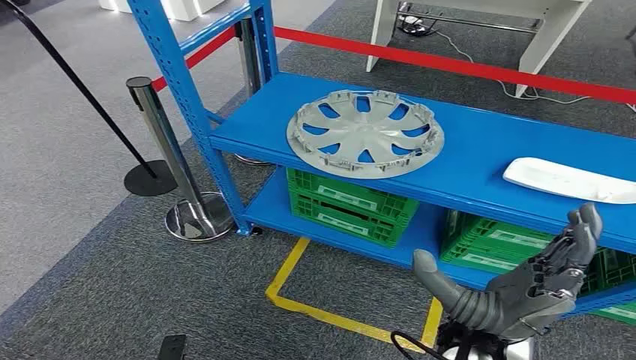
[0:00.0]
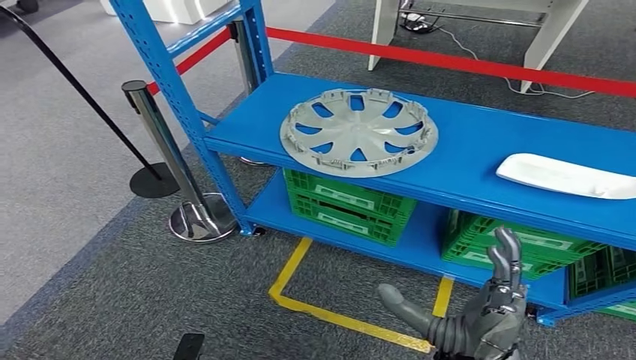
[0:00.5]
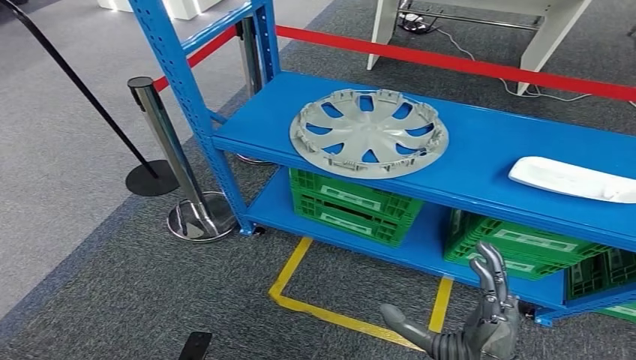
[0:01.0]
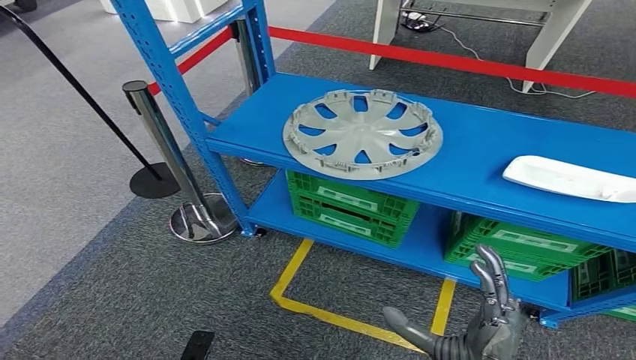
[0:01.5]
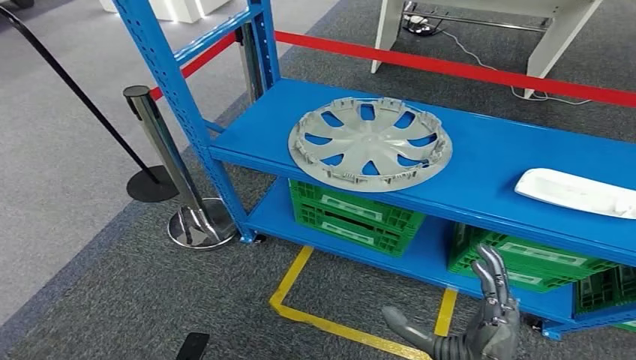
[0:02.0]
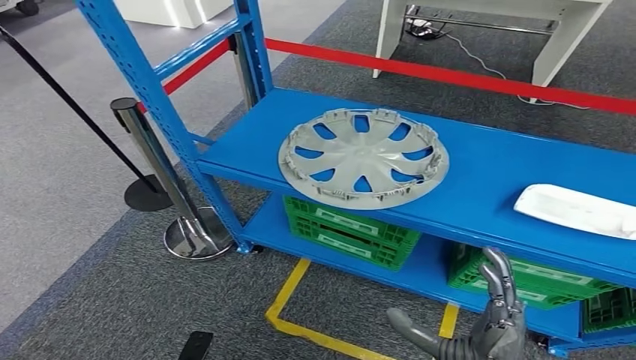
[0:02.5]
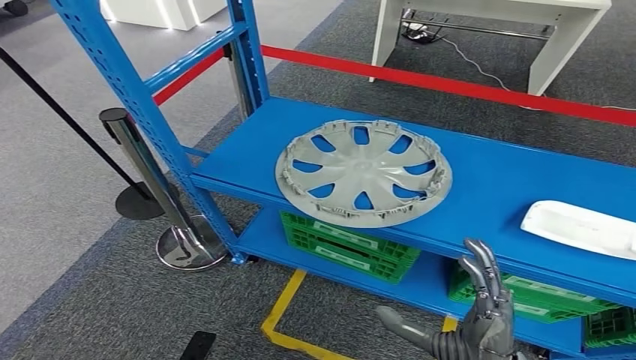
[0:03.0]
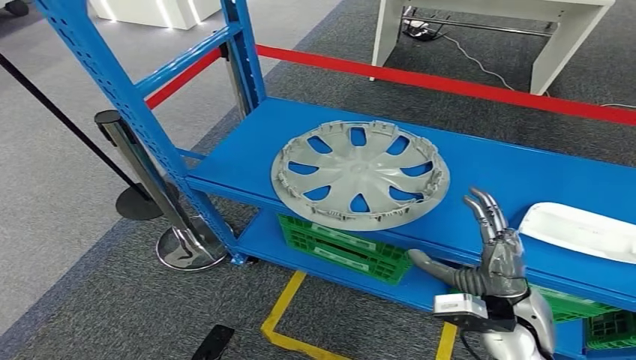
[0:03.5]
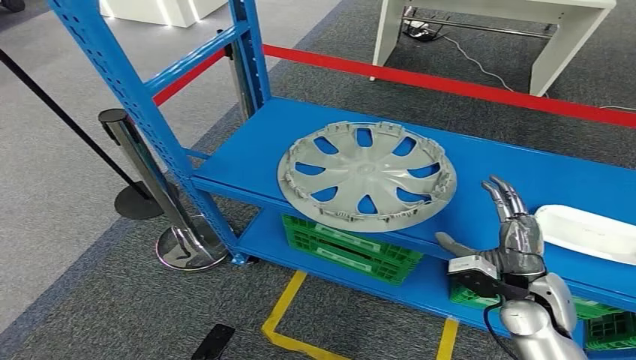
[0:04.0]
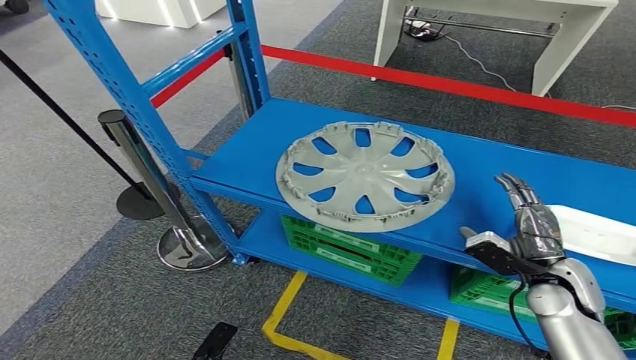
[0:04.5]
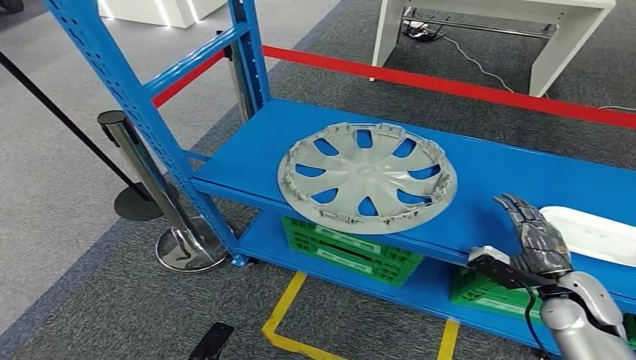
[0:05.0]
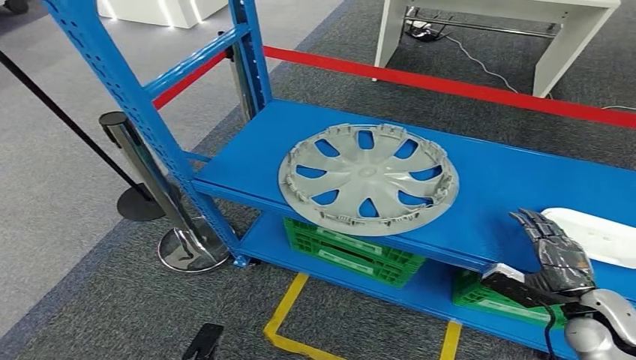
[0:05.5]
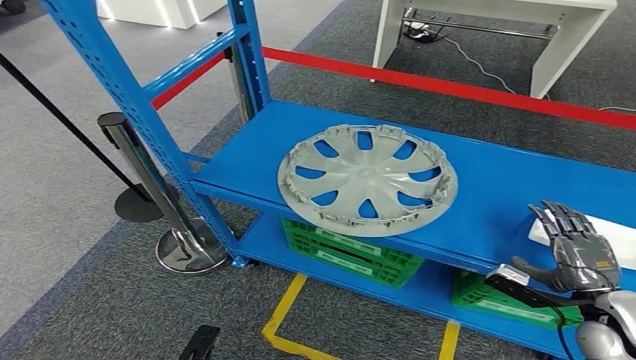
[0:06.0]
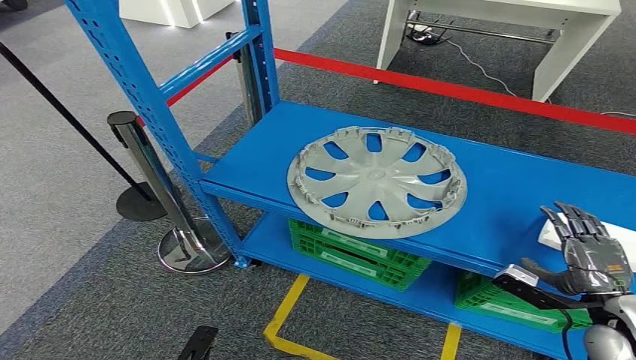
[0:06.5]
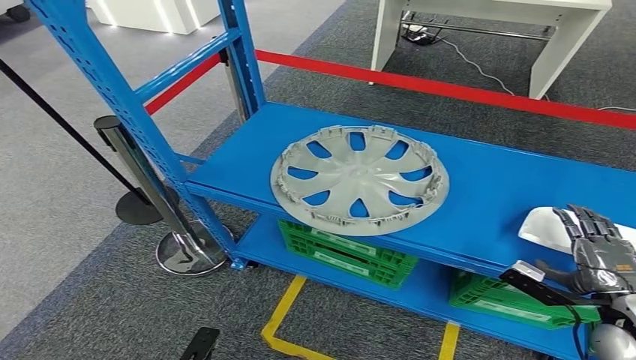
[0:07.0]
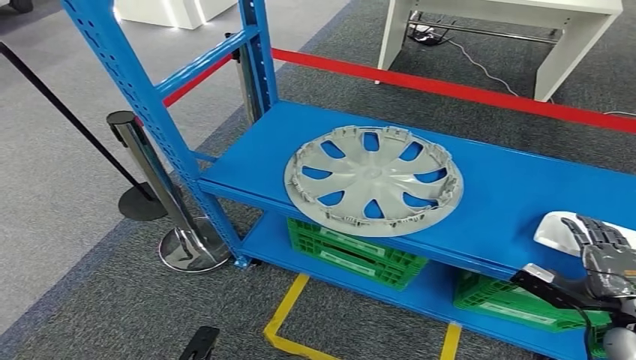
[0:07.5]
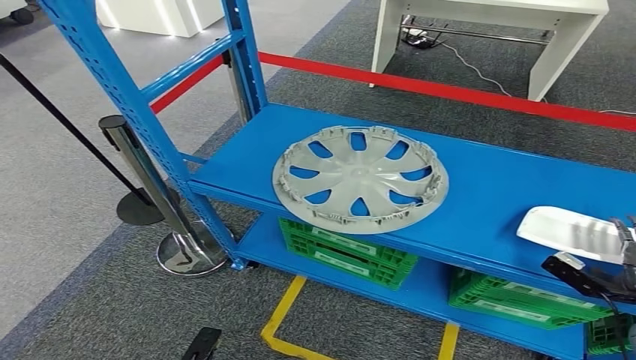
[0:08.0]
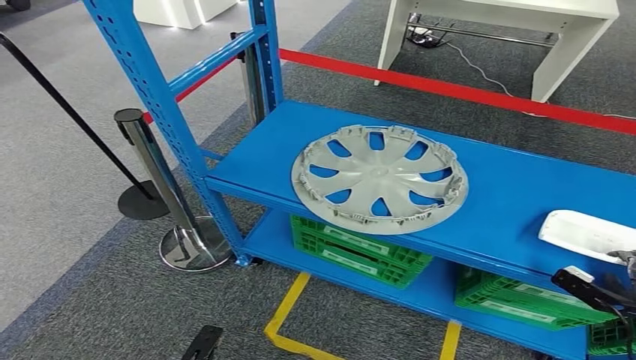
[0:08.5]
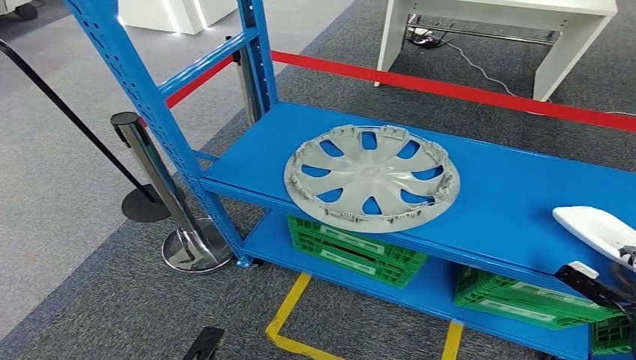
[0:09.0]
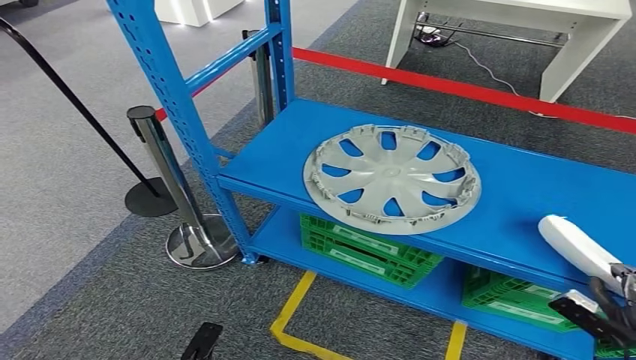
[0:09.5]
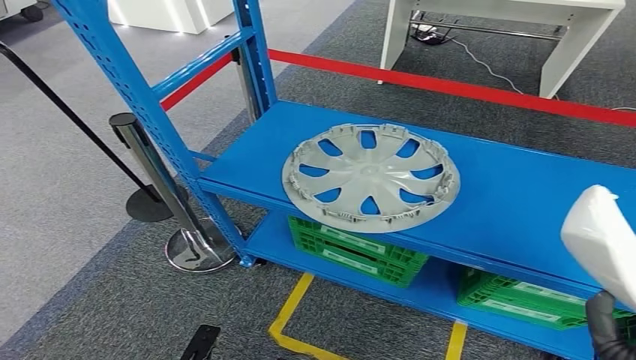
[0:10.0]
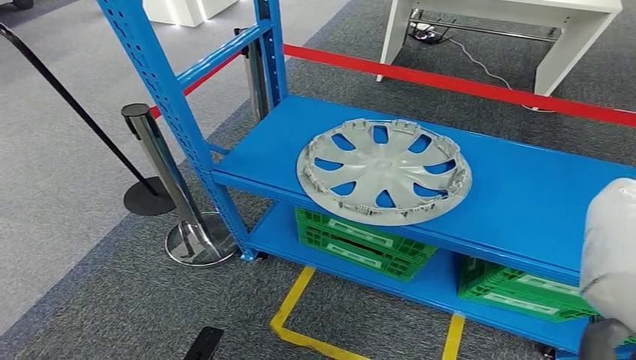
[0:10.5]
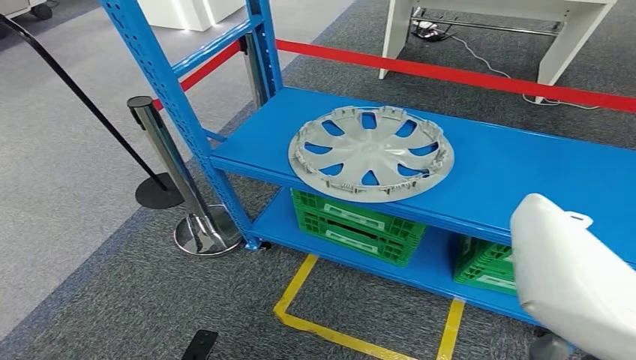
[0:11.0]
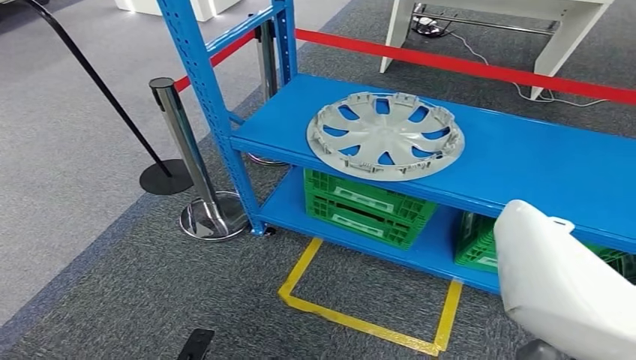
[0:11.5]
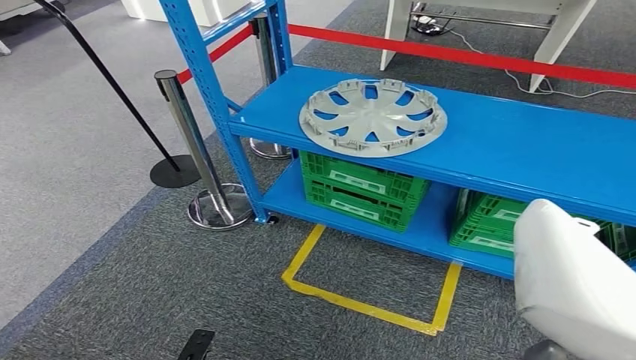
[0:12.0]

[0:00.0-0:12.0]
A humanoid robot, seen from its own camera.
0:04.0 to 0:06.0: The right hand moves to the right, some 10 cm.
0:06.0 to 0:08.0: The right hand shifts approximately 10 cm to the right.

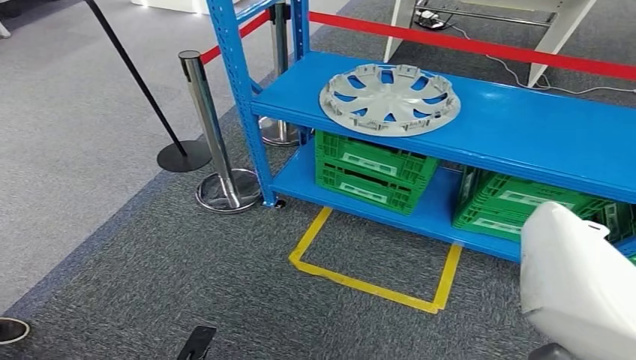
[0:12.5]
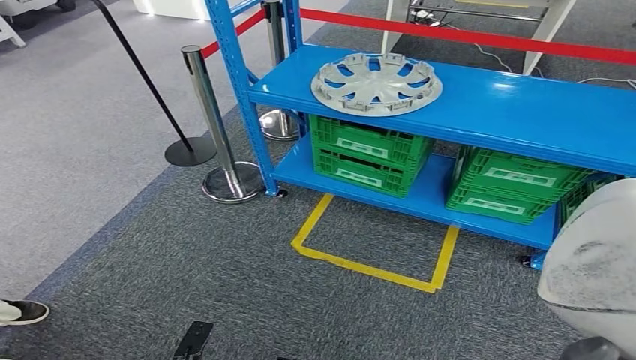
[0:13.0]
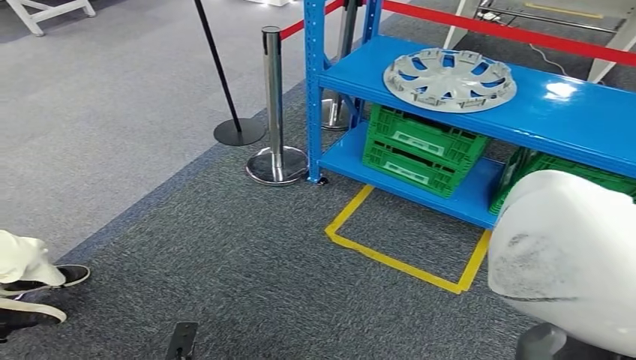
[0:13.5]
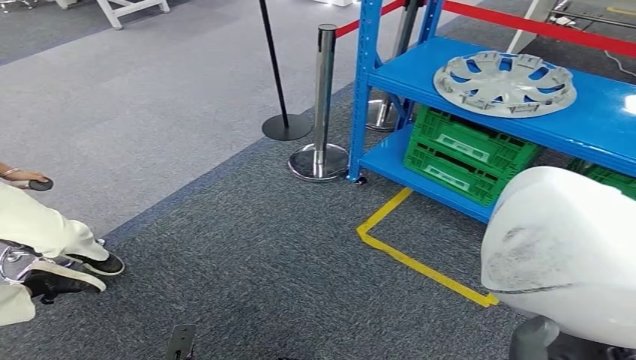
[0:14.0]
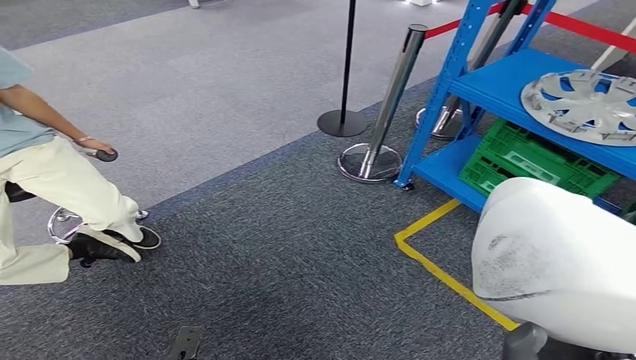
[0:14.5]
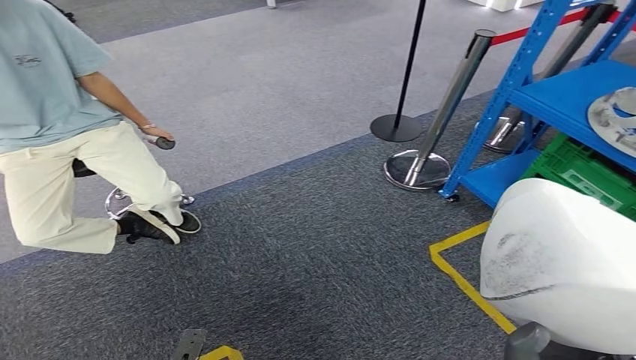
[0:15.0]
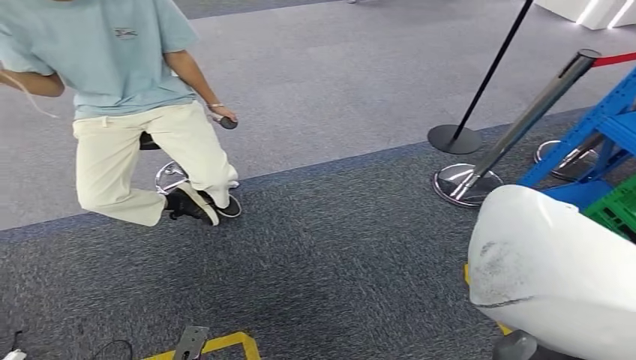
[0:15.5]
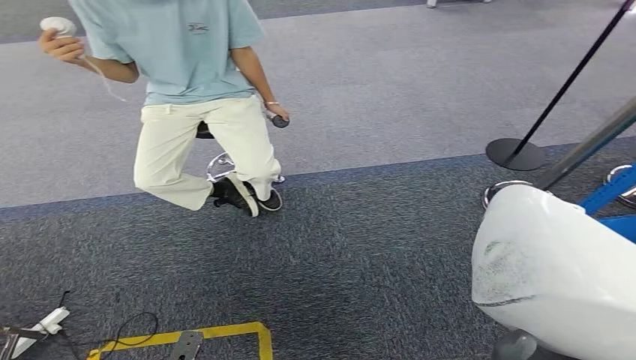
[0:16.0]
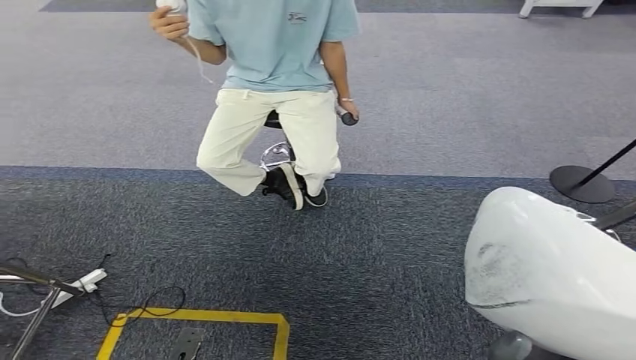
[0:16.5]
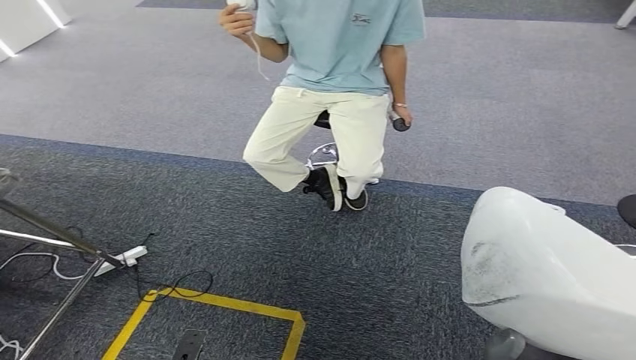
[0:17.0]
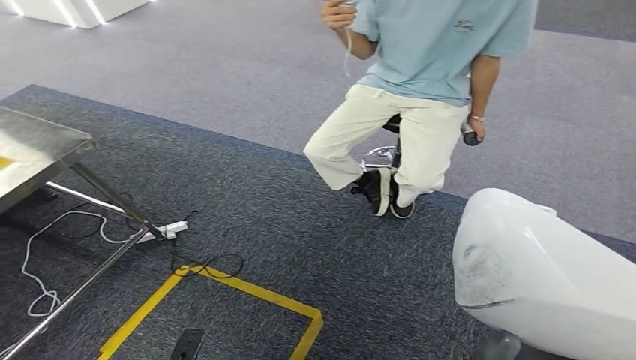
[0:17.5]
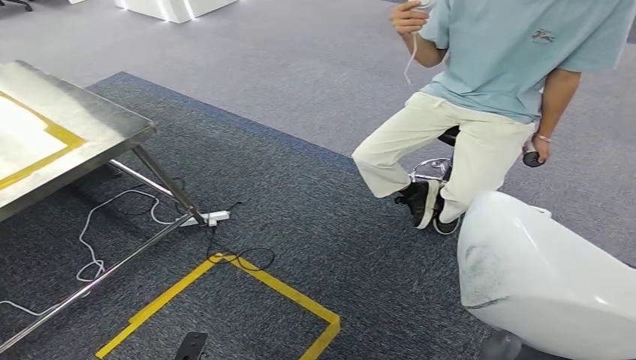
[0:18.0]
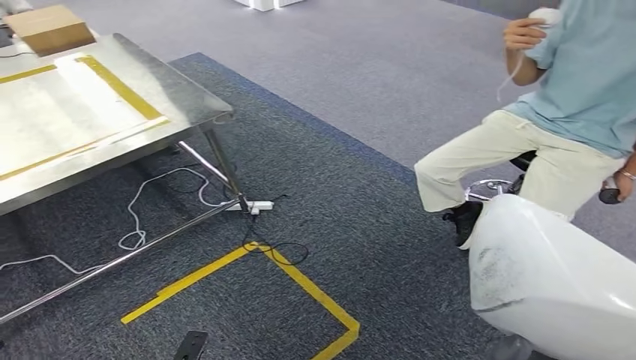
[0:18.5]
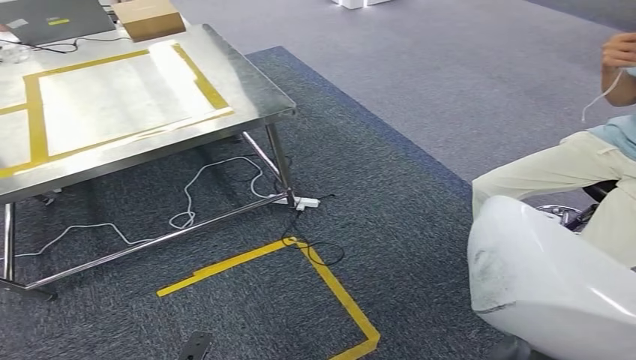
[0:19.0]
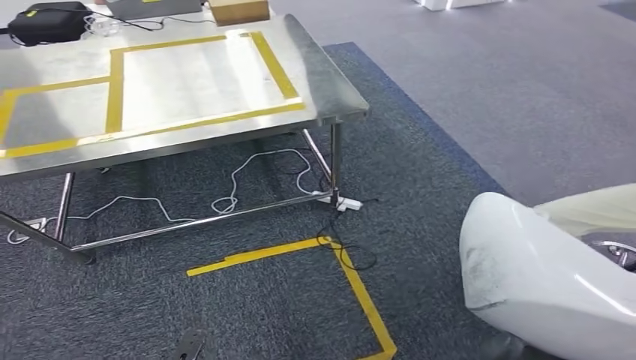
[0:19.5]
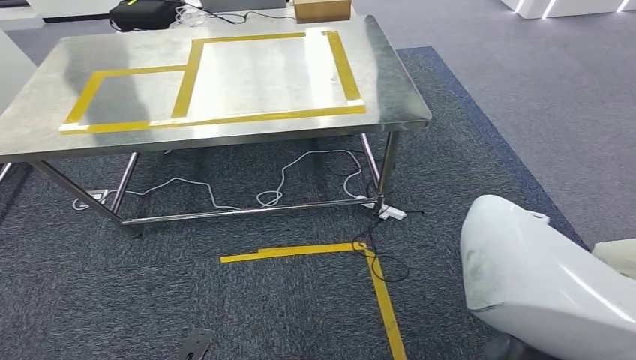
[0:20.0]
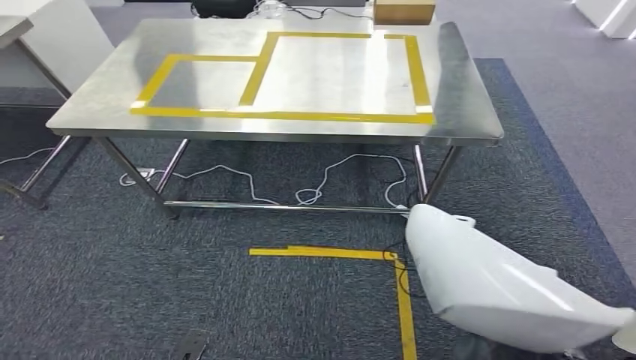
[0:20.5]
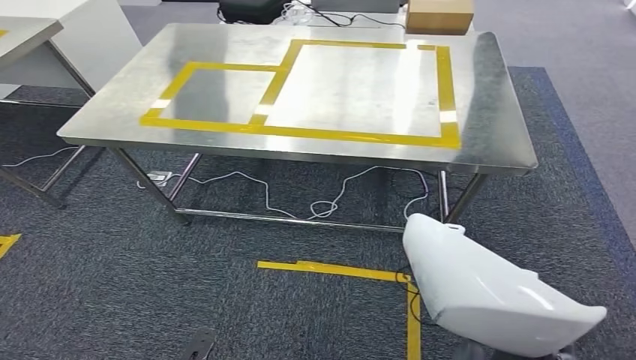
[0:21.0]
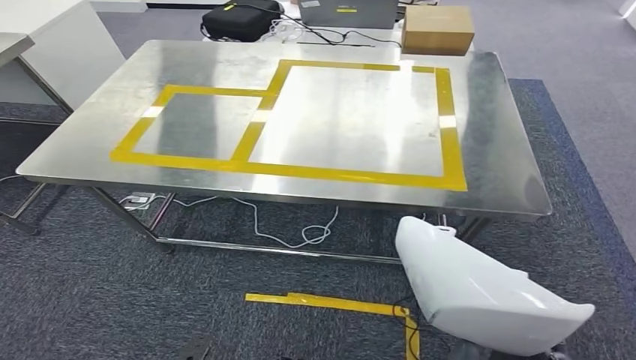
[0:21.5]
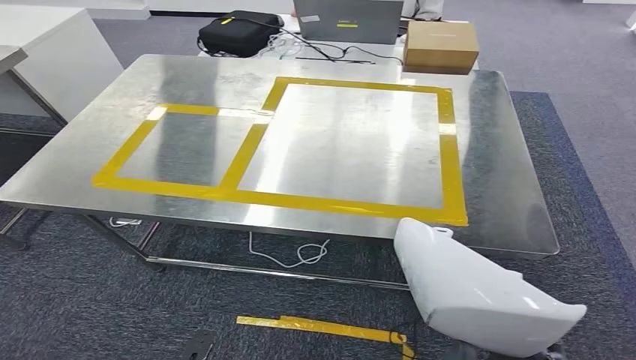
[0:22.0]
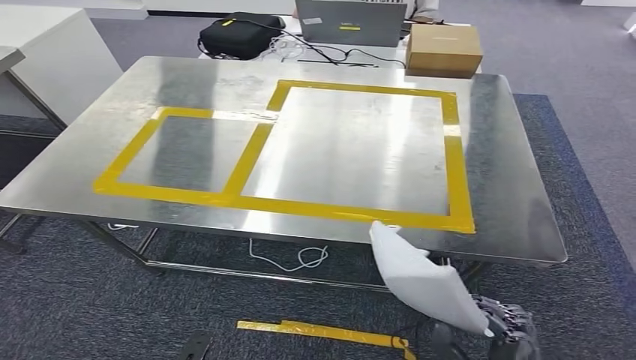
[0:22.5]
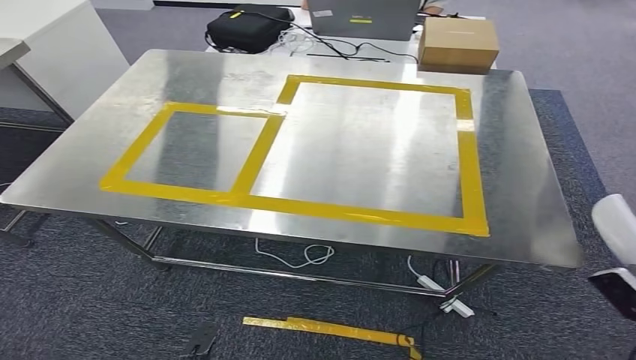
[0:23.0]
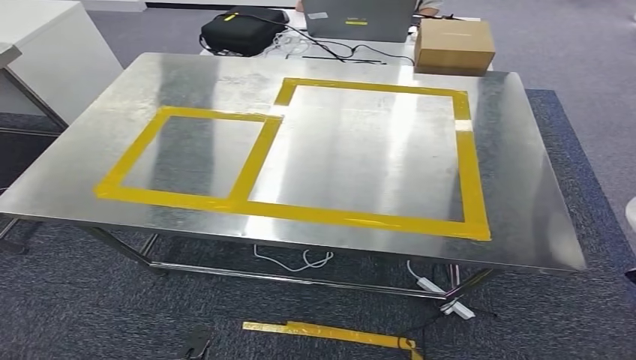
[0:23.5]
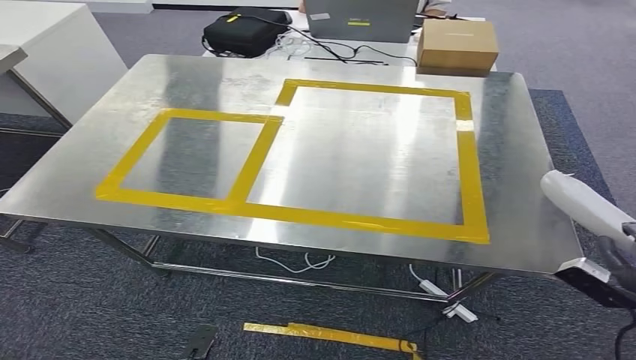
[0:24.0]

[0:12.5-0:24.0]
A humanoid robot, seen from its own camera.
Step, 0:13.0 to 0:20.0: Move the small parts to the workbench.
